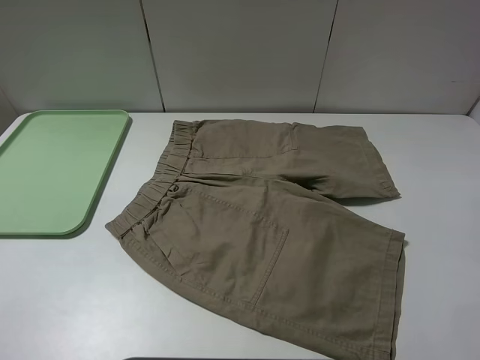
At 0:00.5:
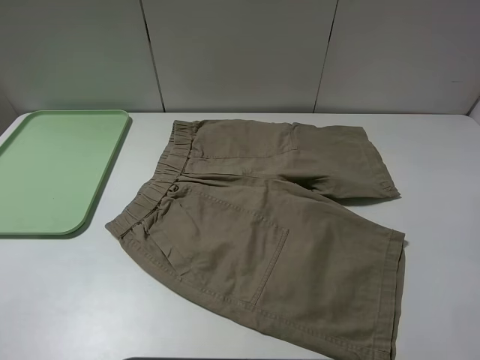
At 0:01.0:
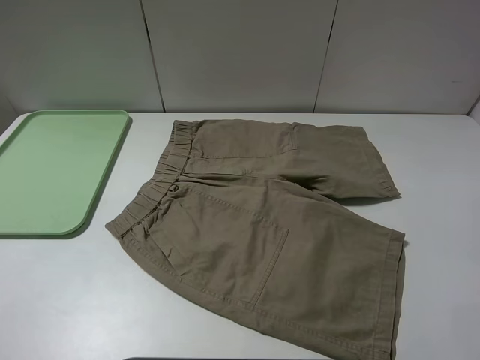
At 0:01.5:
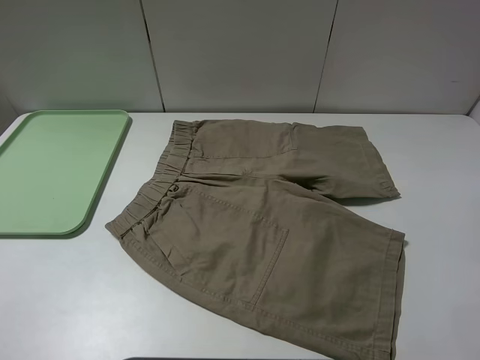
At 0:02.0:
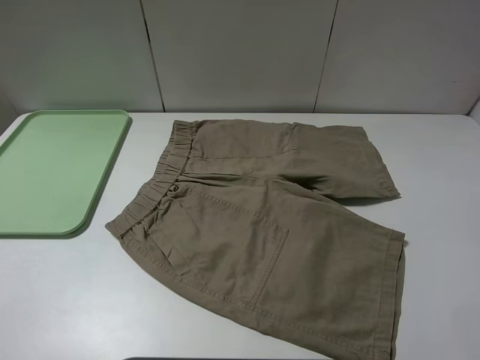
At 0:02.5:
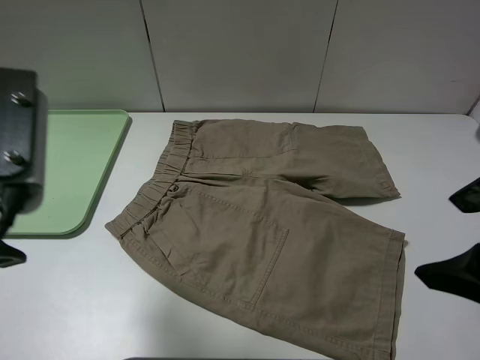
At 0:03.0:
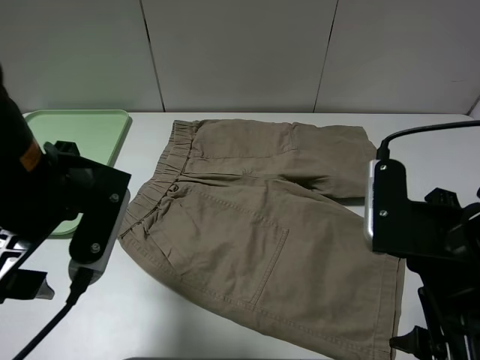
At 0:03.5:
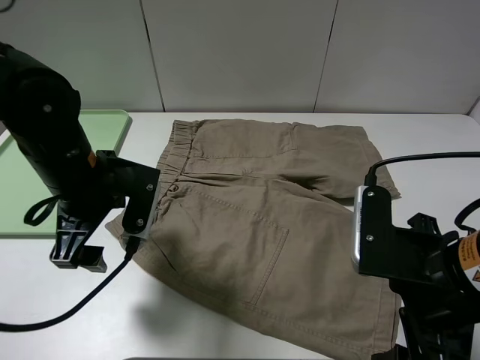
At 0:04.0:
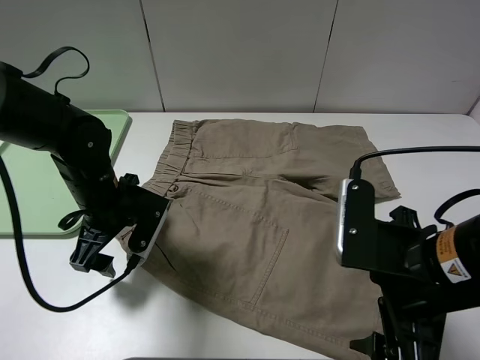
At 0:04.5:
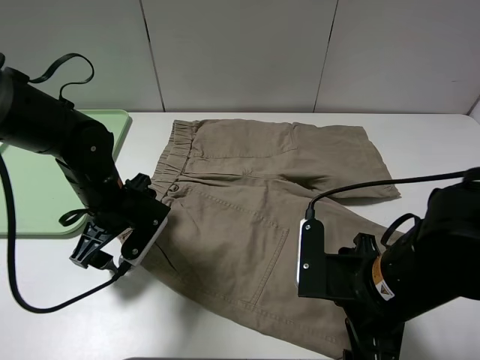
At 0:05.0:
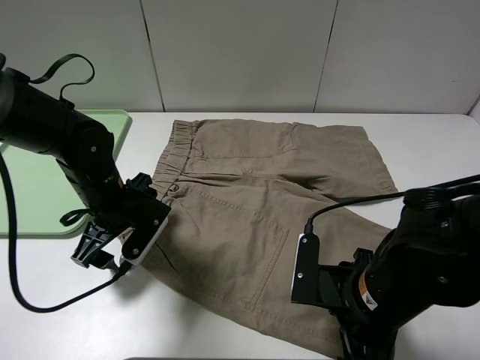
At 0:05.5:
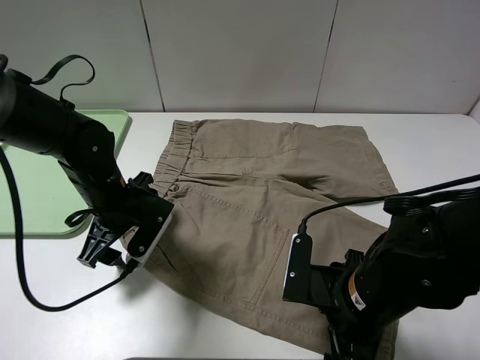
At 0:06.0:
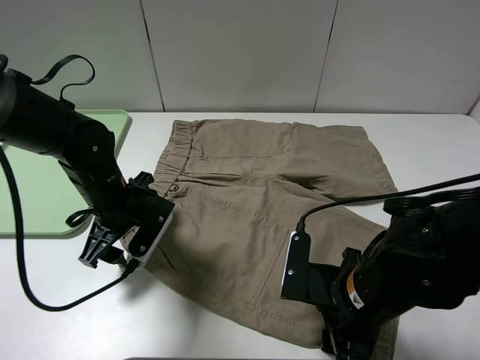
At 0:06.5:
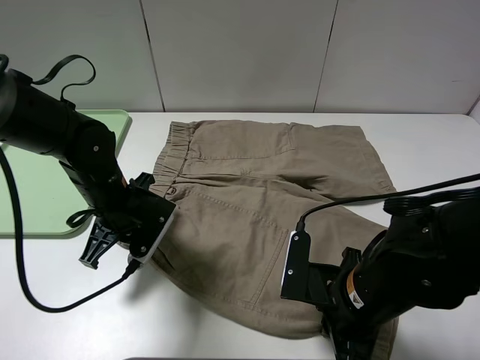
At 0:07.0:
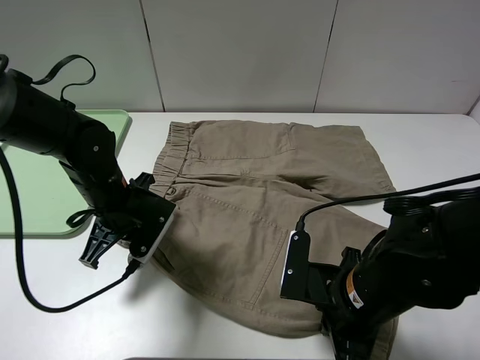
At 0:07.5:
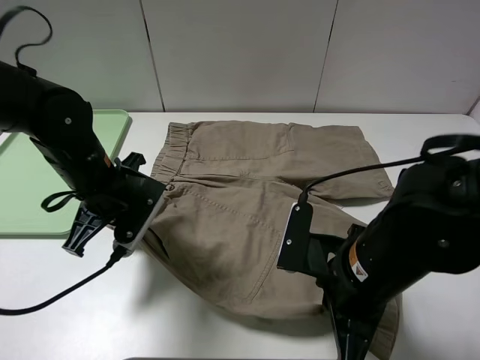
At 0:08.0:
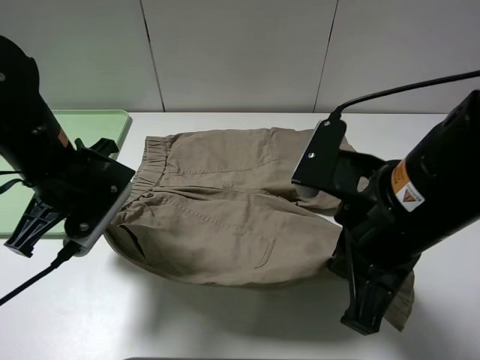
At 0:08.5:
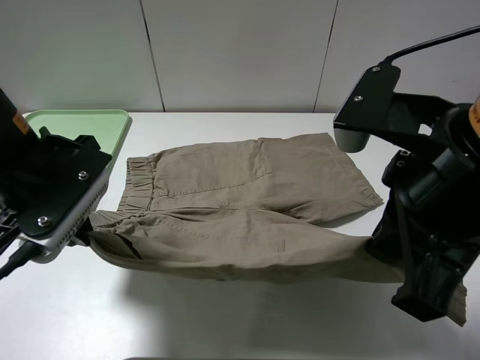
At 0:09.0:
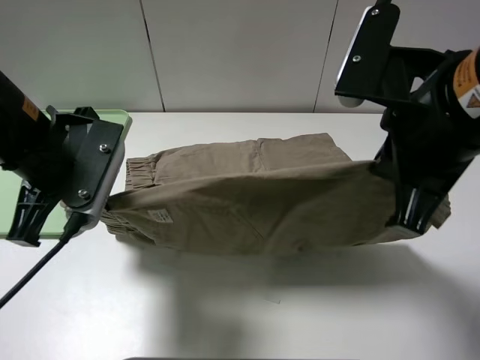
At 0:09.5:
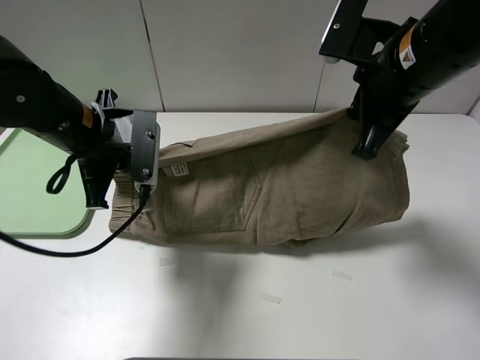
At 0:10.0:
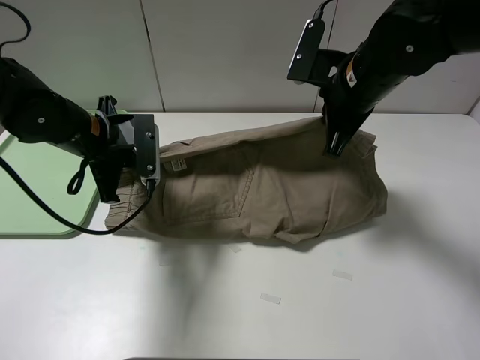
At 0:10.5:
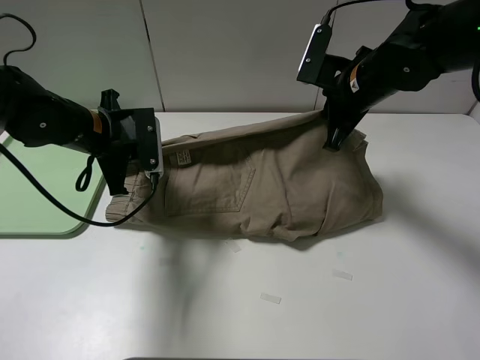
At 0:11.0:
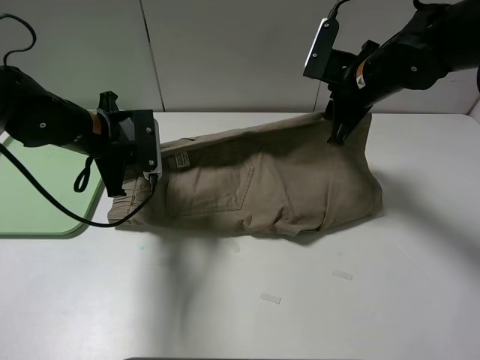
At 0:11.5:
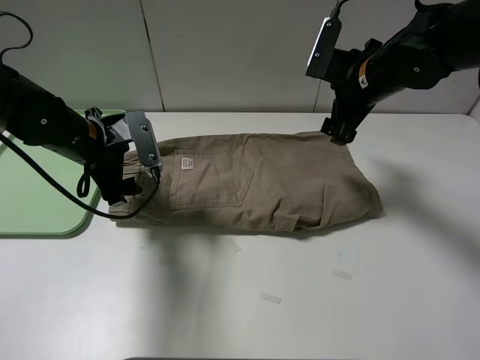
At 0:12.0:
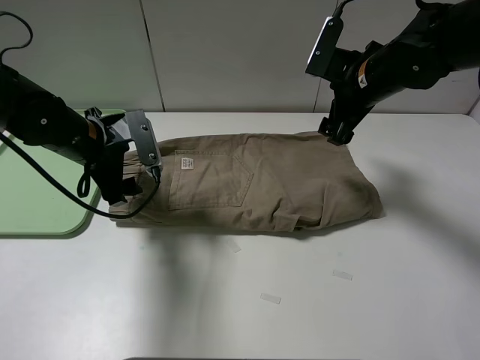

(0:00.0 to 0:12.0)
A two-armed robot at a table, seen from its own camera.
Task of the whole recording: fold the khaki jeans in half with two grippers, then fold them in half again, and use the left claw to place the folded fold khaki jeans on the tray.
Step, 0:00.0 - 0:06.5: Grasp the khaki trousers with the left gripper.
Step, 0:07.0 - 0:11.0: Fold the khaki trousers upwards with the left gripper.
0:02.0 - 0:04.0: The left gripper is displaced downward, forward and to the right by about 35 cm. Meanwhile the right gripper goes roughly 20 cm to the left, downward and forward.
0:04.0 - 0:06.0: The right gripper heads downward, covering approximately 10 cm, and closes.
0:06.0 - 0:08.0: The left gripper travels upward by approximately 10 cm, and closes its fingers. Meanwhile the right gripper travels upward by some 15 cm, and closes.
0:08.0 - 0:10.0: The right gripper heads forward, covering roughly 20 cm; the left gripper goes about 10 cm forward.
0:10.0 - 0:12.0: The right gripper changes place by some 5 cm, and opens its fingers. Meanwhile the left gripper opens its fingers.

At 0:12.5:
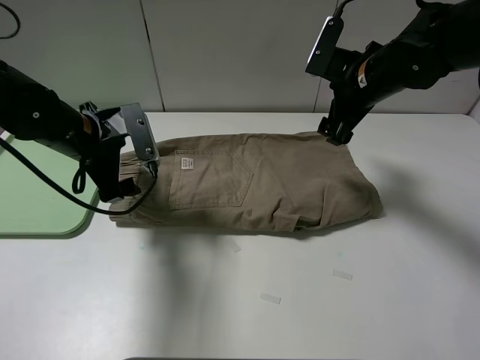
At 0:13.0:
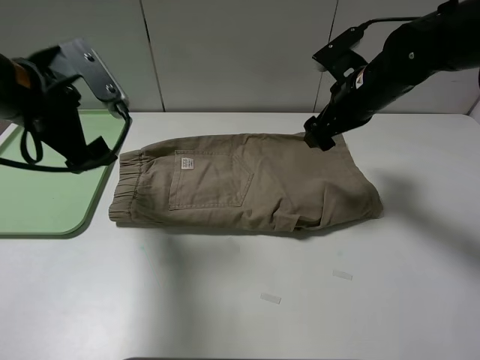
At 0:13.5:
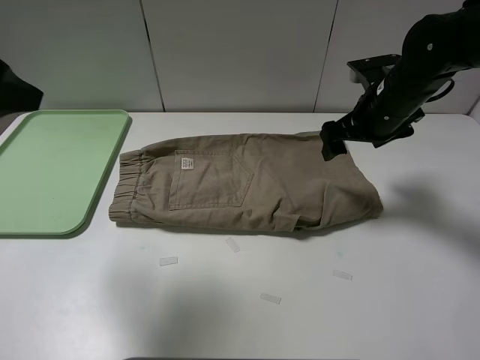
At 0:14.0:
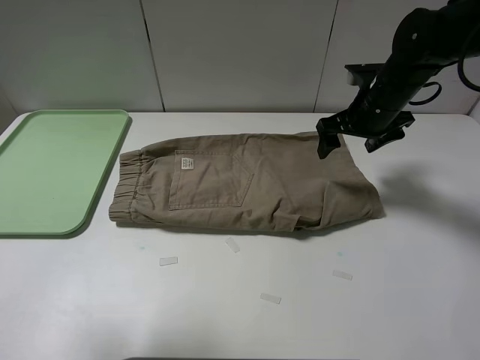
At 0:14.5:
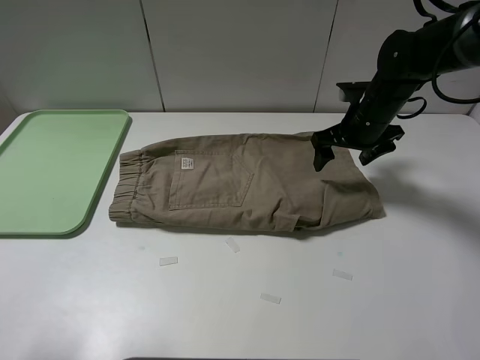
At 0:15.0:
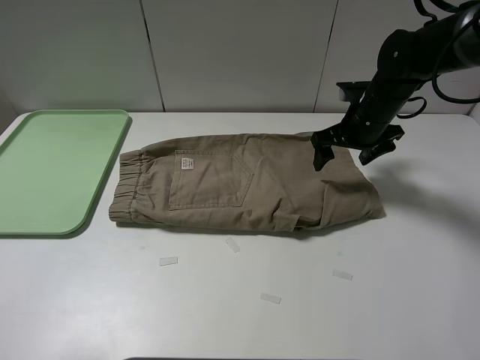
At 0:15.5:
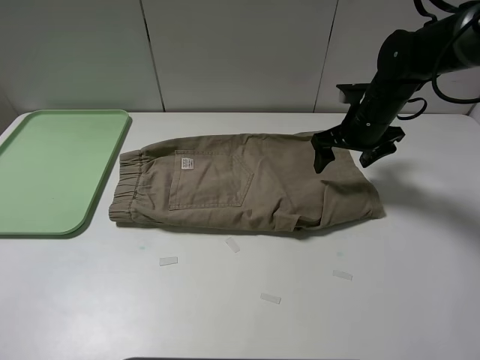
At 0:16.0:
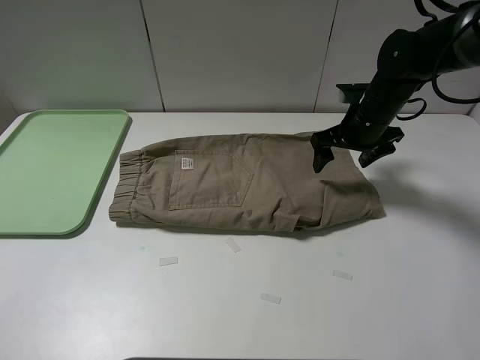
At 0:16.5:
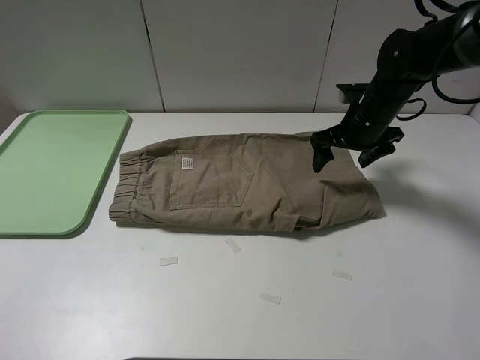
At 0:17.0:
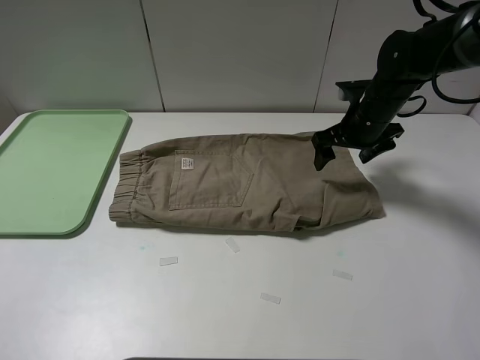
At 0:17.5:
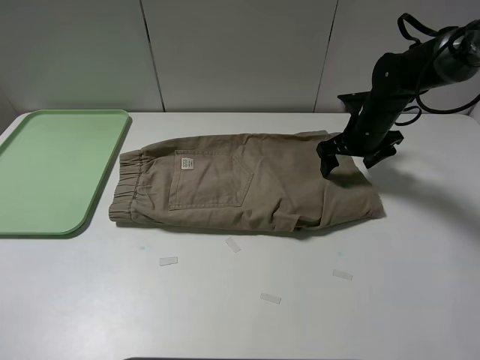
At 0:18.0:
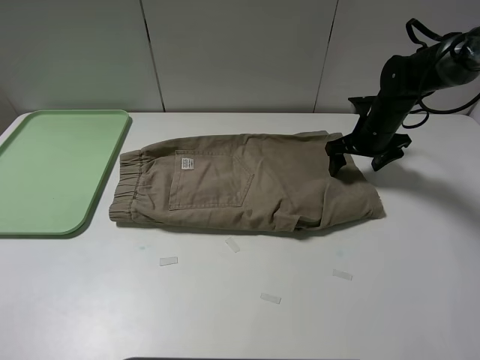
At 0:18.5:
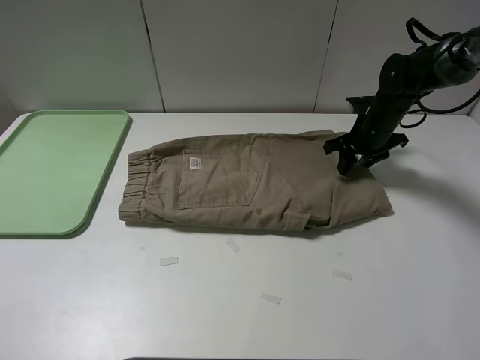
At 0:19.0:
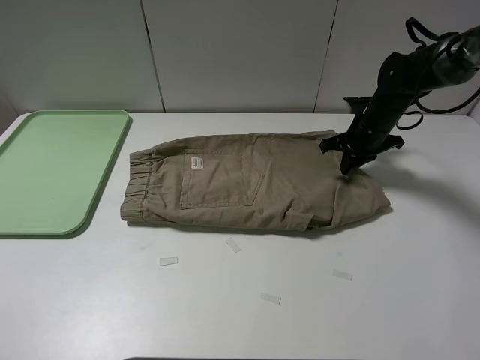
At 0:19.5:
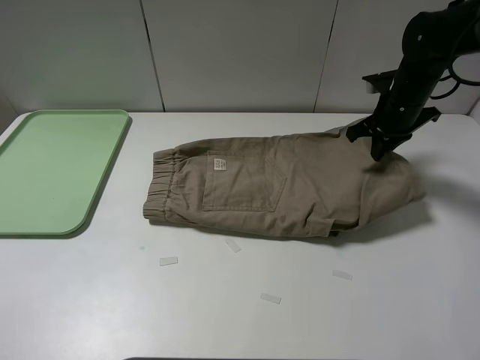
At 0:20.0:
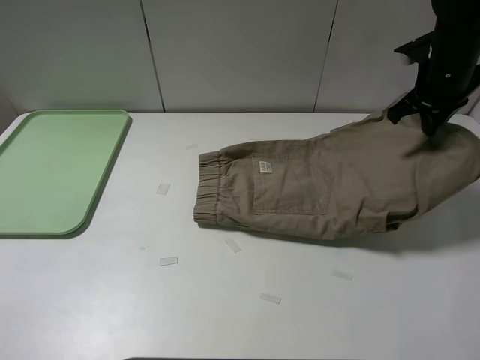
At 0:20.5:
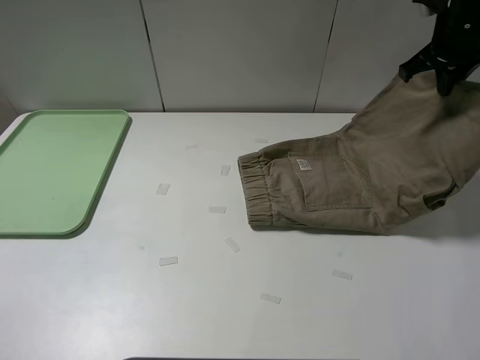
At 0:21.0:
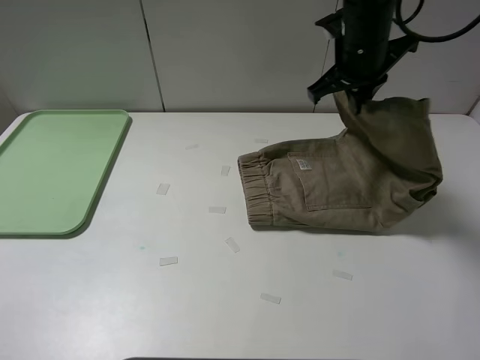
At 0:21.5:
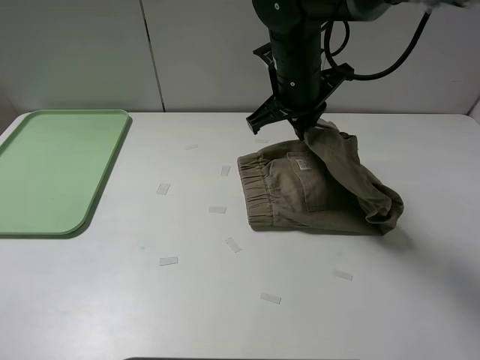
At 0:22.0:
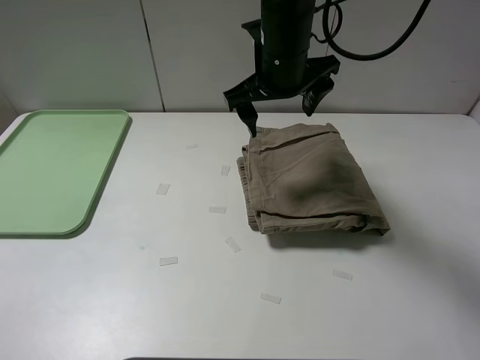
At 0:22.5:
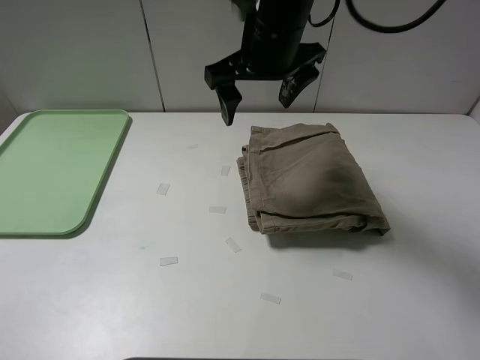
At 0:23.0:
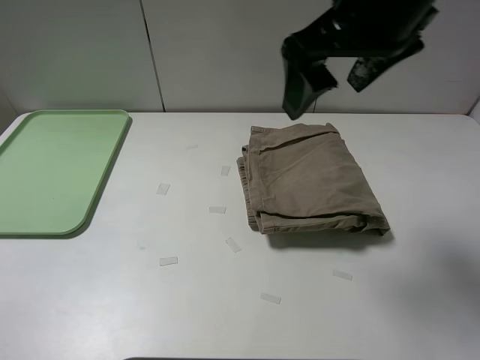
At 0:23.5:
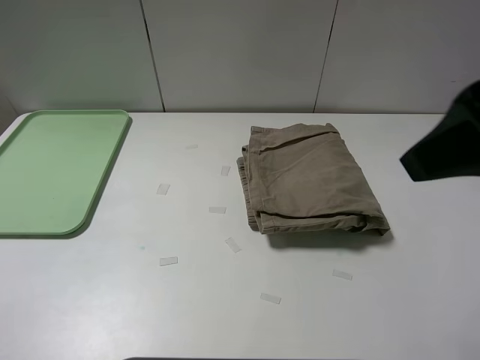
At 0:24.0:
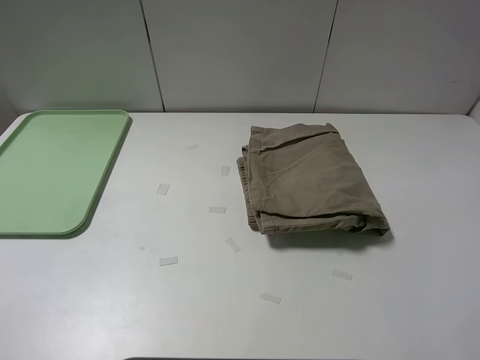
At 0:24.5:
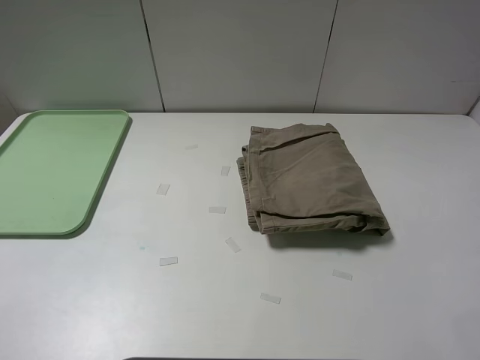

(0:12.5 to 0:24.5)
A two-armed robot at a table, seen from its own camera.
Task of the whole recording: fold the khaki jeans in half with two grippers, then fold them in half again, and use the left claw to place the folded fold khaki jeans on the tray.
Step, 0:12.5 - 0:19.0: Grasp the khaki trousers with the right gripper.
Step, 0:19.5 - 0:21.5: Fold the khaki trousers from right to left with the right gripper.
0:12.5 - 0:14.5: The right gripper moves downward, some 5 cm. The left gripper heads backward, upward and to the left, covering about 30 cm.
0:14.5 - 0:16.5: The left gripper heads backward, covering roughly 5 cm.
0:16.5 - 0:18.5: The right gripper heads downward, covering roughly 5 cm, and closes.
0:18.5 - 0:20.5: The right gripper shifts about 20 cm upward.
0:20.5 - 0:22.5: The right gripper shifts some 25 cm to the left, and opens its fingers.
0:22.5 - 0:24.5: The right gripper moves backward and to the right, some 40 cm.

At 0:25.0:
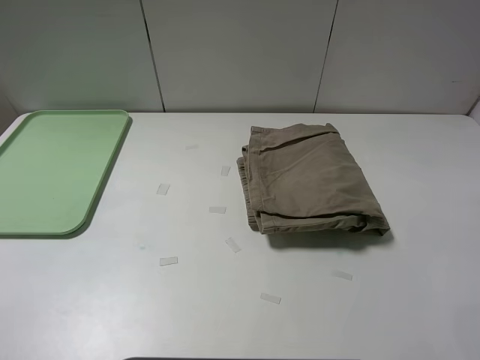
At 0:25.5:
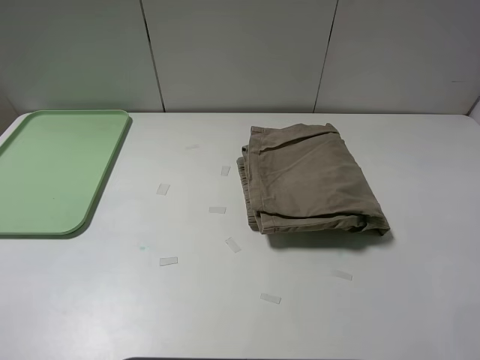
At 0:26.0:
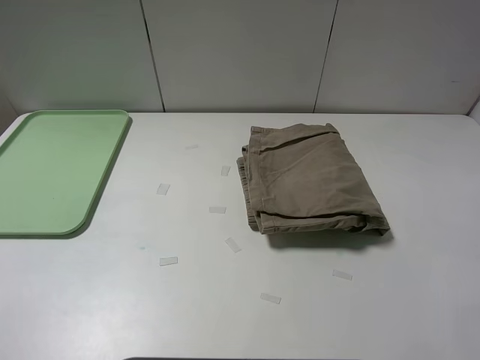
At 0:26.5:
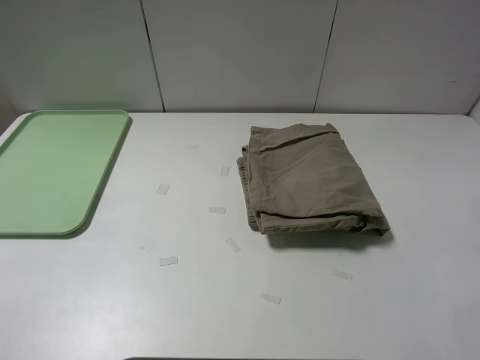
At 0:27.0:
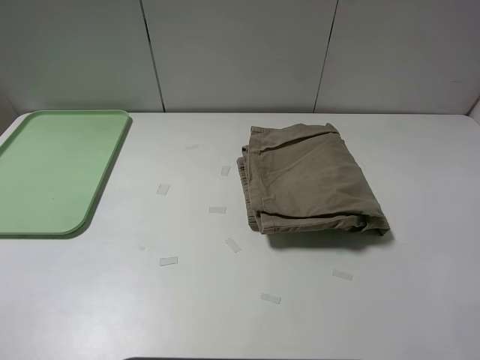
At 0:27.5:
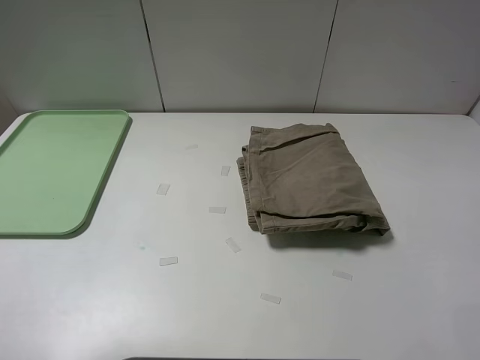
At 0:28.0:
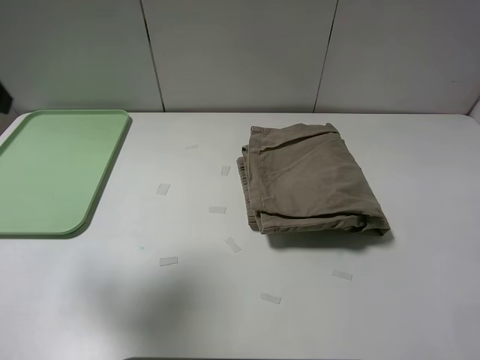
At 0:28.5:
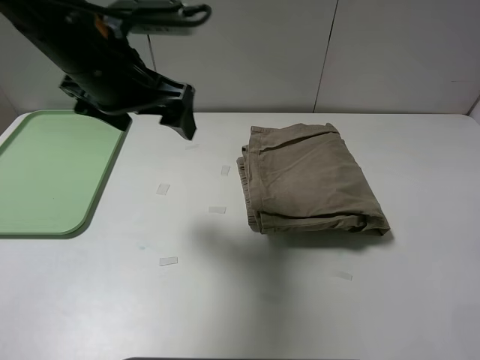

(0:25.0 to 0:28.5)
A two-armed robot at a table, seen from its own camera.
Task of the whole recording: fold the khaki jeans in half with two grippers, then fold them in half again, and use the left claw to place the folded fold khaki jeans on the tray.
0:25.0 - 0:27.0: Both grippers stay put.
0:27.0 - 0:28.5: The left gripper is displaced forward and to the right by approximately 35 cm.
